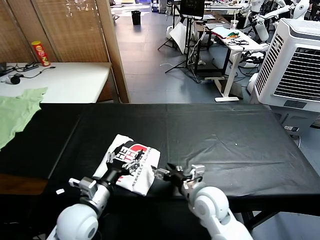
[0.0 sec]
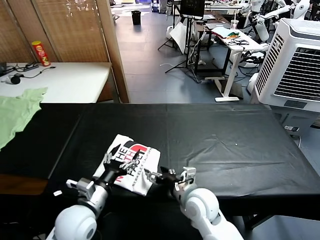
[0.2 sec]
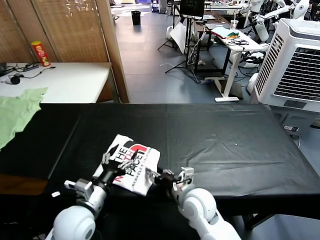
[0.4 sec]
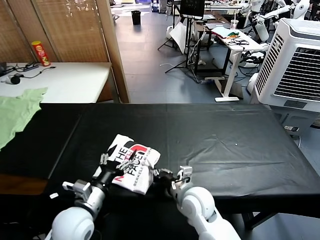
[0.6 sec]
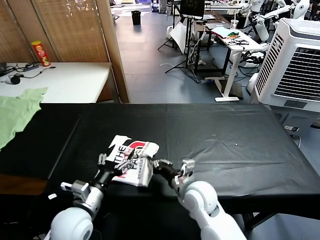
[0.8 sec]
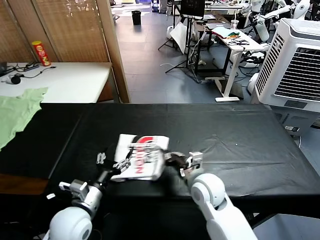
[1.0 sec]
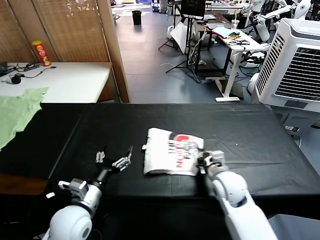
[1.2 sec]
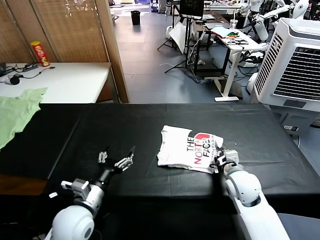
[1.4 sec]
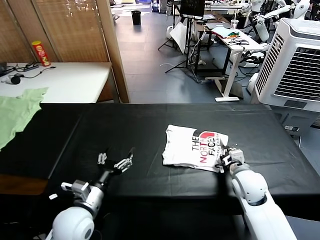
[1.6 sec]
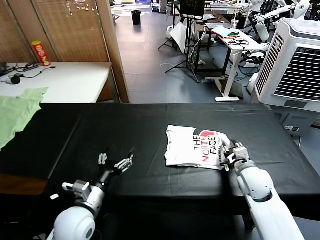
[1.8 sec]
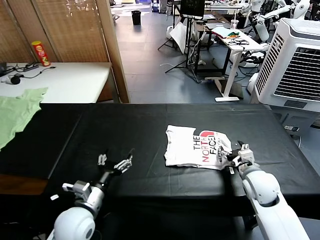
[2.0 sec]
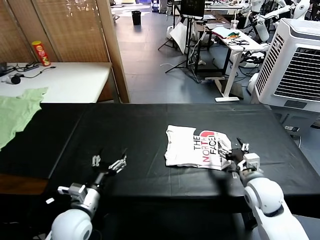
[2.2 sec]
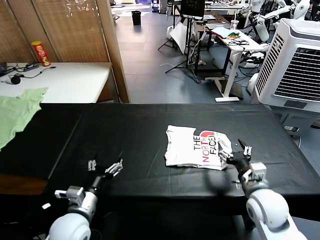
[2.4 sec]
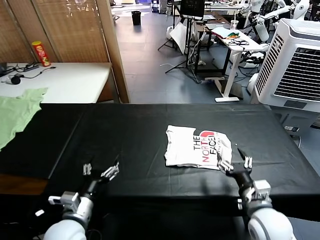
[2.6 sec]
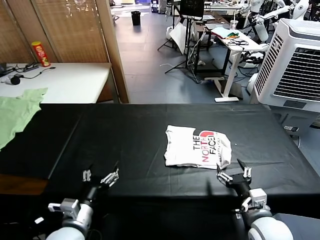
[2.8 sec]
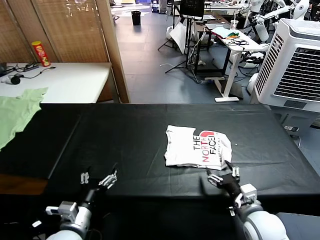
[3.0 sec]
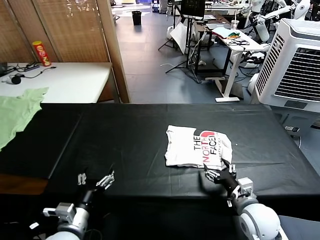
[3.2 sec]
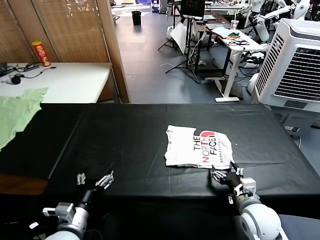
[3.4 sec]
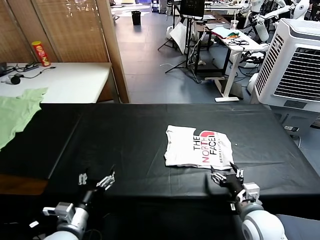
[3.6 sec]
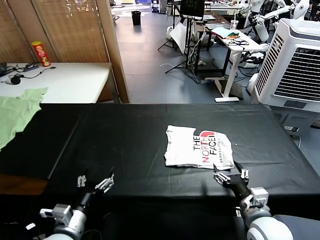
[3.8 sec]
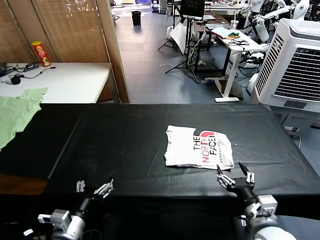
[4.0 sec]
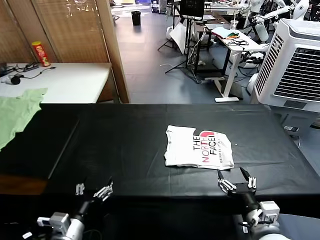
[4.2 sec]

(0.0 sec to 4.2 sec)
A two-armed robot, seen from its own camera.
Task of the whole recording: fold and organize the clothes.
Step, 0.0 sec - 2.0 sec: Drag the clothes to the center of the table.
0.0 sec - 1.4 sec: The right gripper shifts some 10 cm to the right and forward, and closes up.
1.4 sec - 2.8 sec: The right gripper moves backward, about 15 cm, and opens; the left gripper moves approximately 5 cm.
2.8 sec - 4.2 sec: The right gripper moves about 5 cm.
